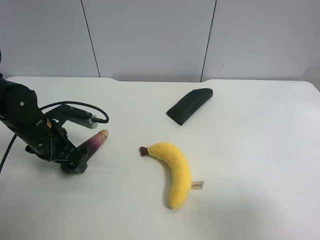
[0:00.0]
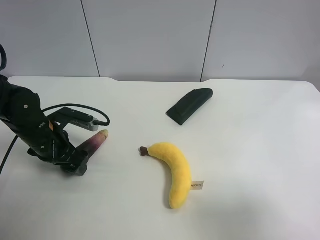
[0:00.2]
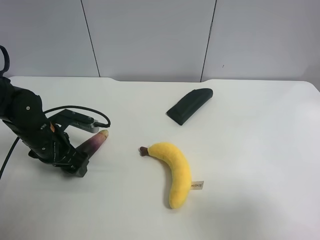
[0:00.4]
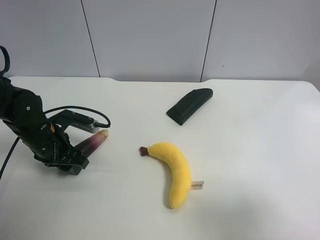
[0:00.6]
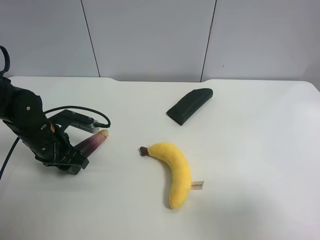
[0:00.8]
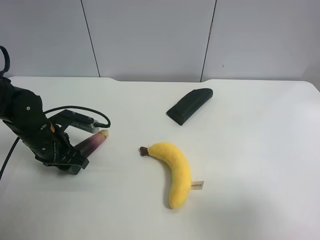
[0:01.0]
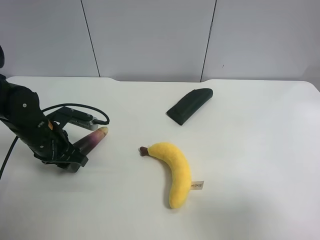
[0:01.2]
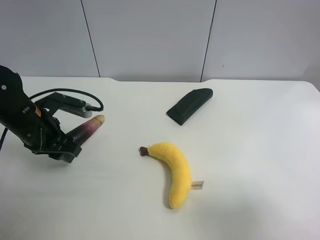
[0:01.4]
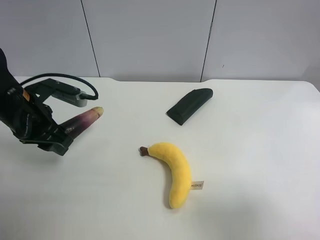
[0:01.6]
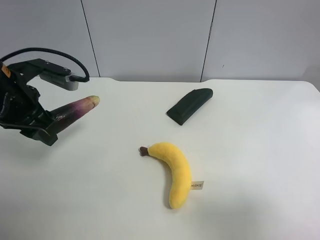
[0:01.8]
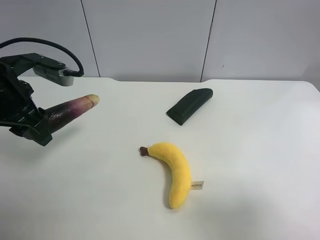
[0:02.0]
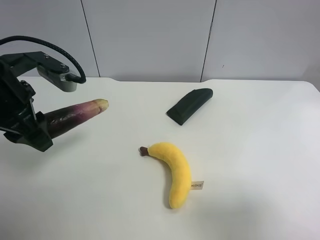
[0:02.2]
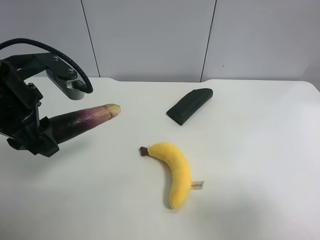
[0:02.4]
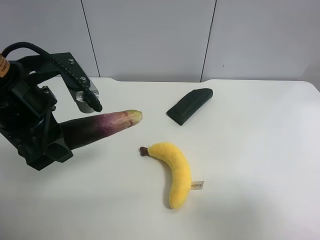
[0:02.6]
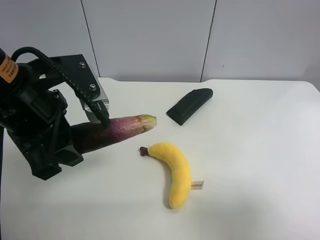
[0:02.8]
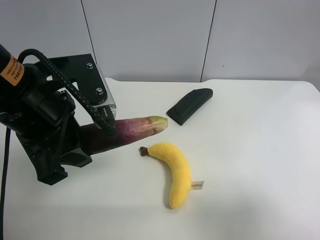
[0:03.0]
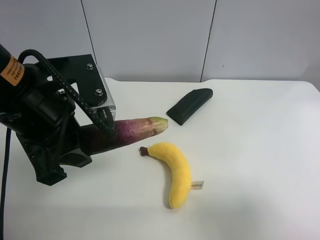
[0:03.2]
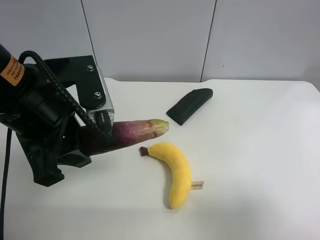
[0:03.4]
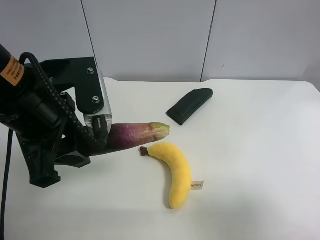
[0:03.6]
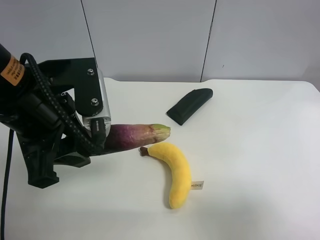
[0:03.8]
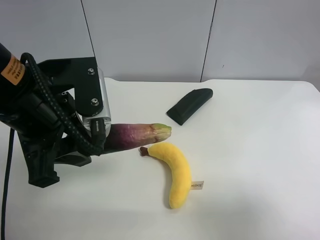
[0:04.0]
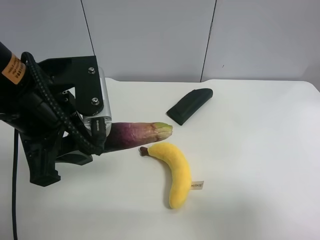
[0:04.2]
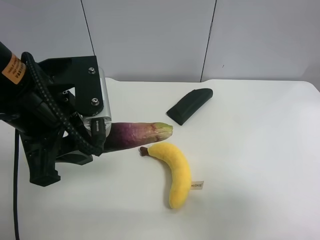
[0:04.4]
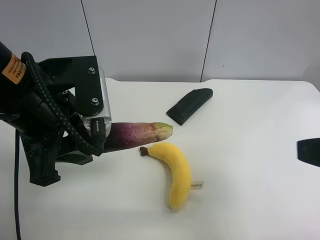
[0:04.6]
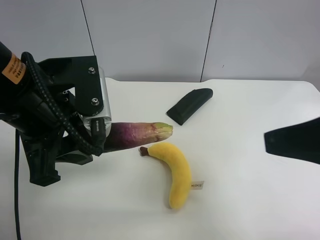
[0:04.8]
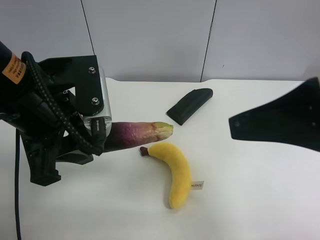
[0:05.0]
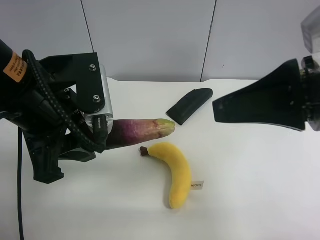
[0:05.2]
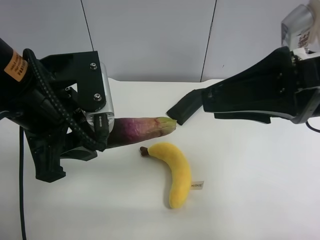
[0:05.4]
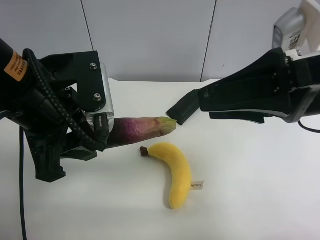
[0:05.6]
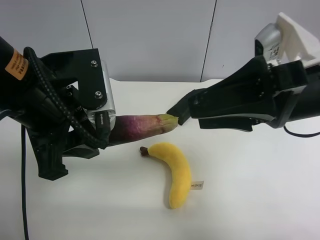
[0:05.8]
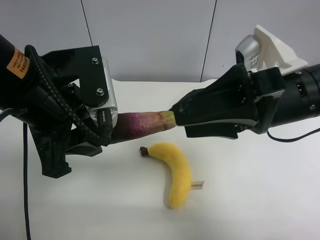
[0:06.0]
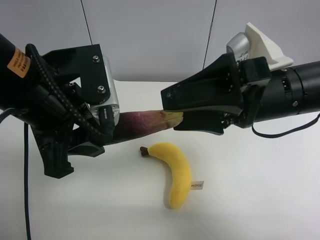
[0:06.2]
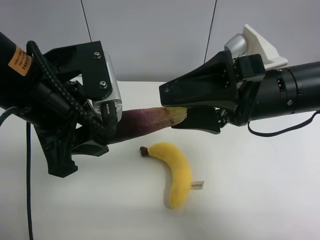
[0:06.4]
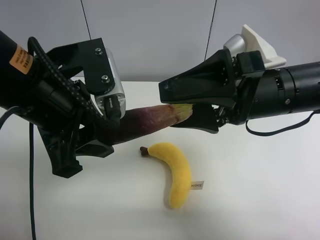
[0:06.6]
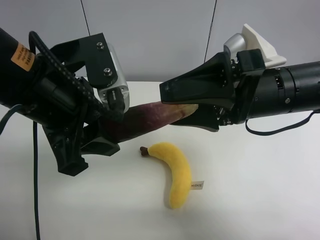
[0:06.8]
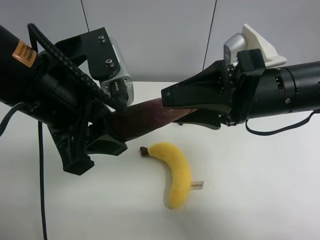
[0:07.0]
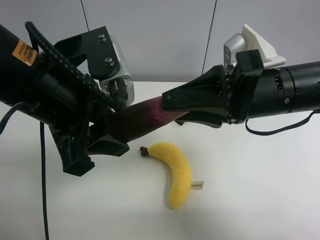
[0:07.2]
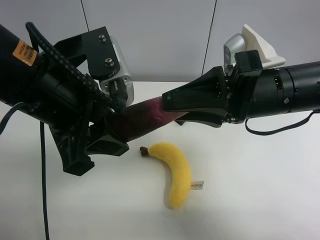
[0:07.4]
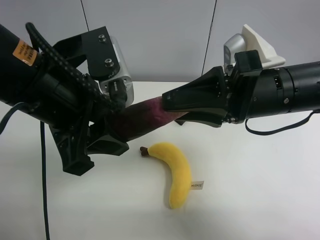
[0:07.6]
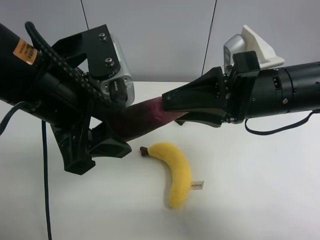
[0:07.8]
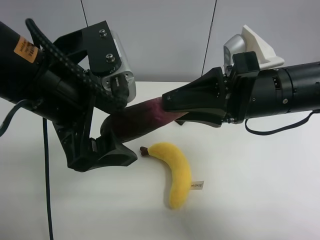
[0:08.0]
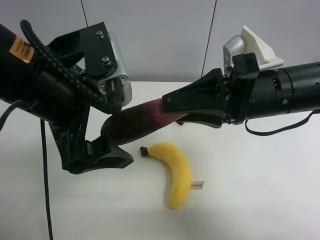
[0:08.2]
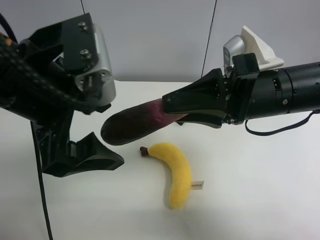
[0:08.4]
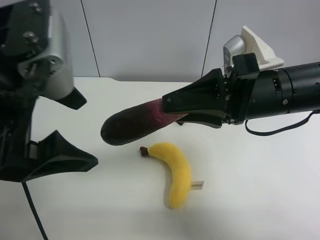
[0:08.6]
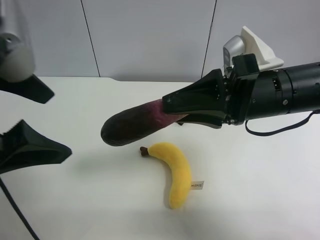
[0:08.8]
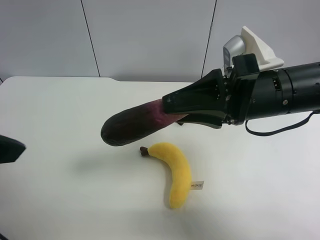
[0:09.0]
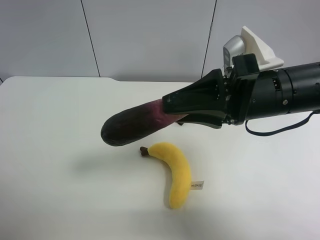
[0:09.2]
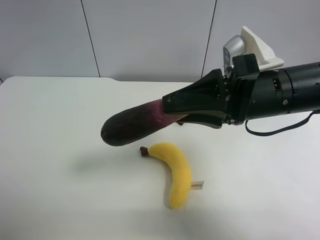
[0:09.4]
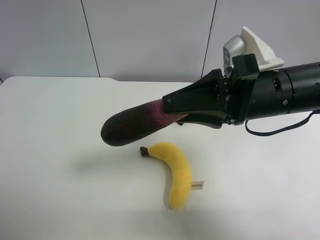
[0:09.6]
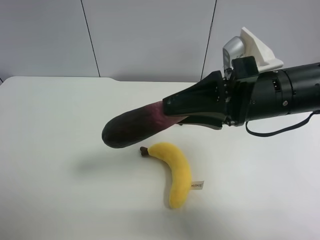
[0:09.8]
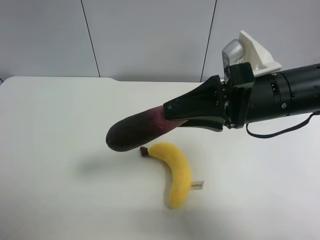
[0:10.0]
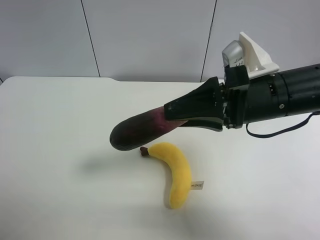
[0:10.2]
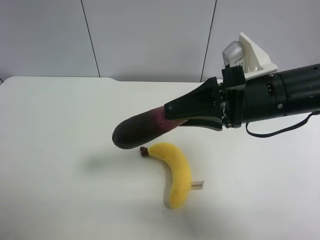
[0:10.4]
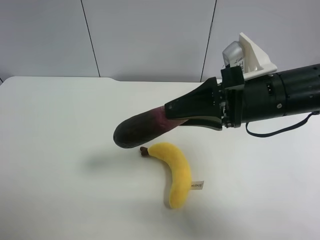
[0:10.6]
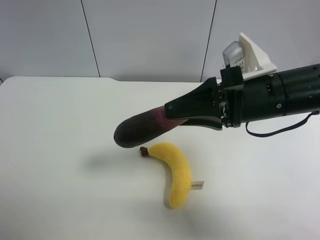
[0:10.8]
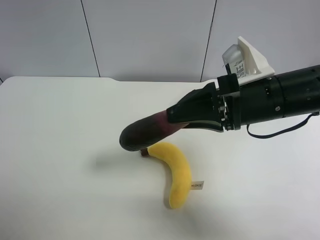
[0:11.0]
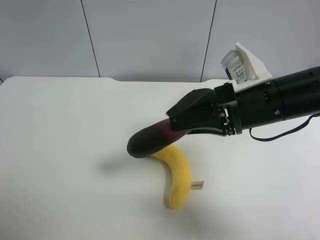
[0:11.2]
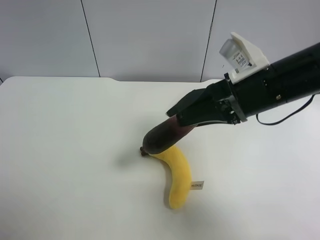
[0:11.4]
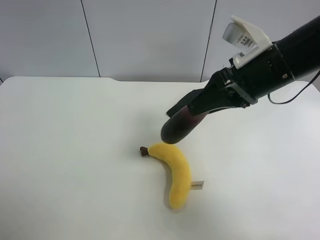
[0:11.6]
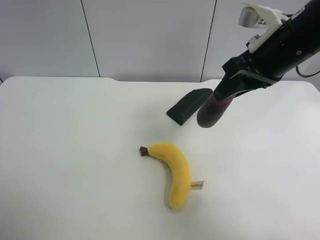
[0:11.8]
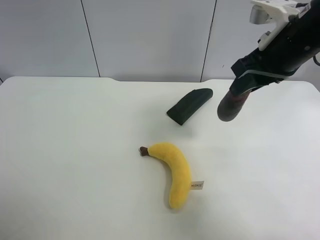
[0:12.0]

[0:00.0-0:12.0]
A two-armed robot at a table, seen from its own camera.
Task of the whole recording: use the left gripper to pick up the item and transfer it from the left gripper to the right gripper.
0:00.0 to 0:01.6: The left gripper goes roughly 10 cm upward, and closes its fingers.
0:01.6 to 0:03.0: The left gripper moves to the right, backward and upward, some 15 cm.
0:03.0 to 0:04.4: There are only small adjustments of the grippers.
0:04.4 to 0:06.0: The right gripper heads forward and to the left, covering roughly 20 cm.
0:06.0 to 0:07.6: The right gripper closes up.
0:07.6 to 0:09.0: The left gripper is displaced to the left, backward and upward by approximately 15 cm, and opens its fingers.
0:09.0 to 0:10.4: The left gripper heads to the left, backward and downward, covering some 15 cm.
0:10.4 to 0:12.0: The right gripper is displaced forward and upward by roughly 10 cm.

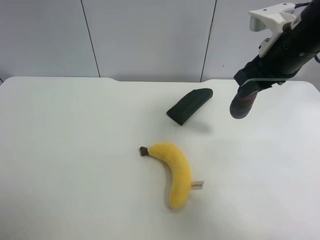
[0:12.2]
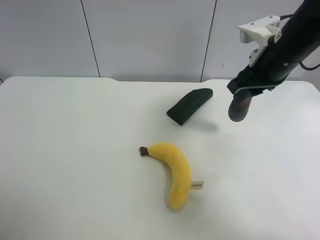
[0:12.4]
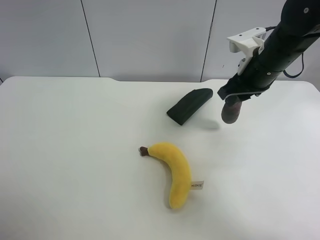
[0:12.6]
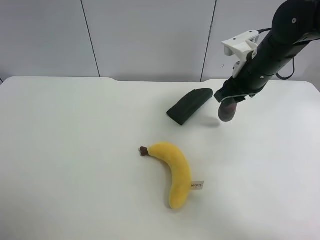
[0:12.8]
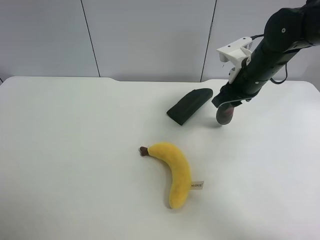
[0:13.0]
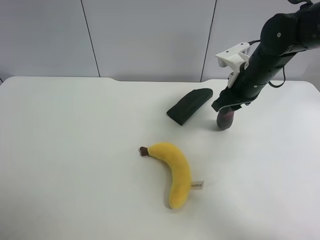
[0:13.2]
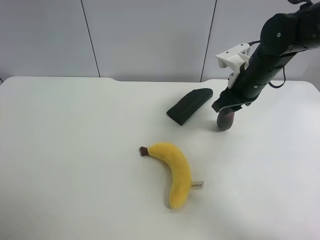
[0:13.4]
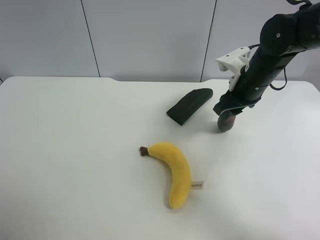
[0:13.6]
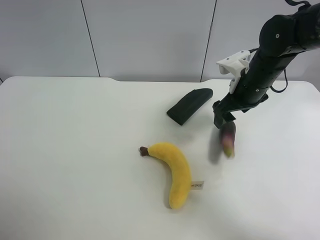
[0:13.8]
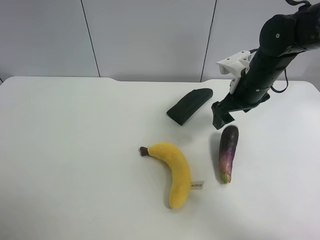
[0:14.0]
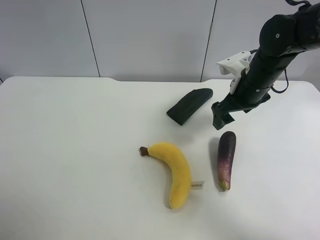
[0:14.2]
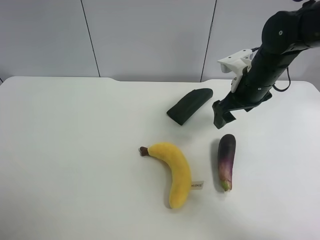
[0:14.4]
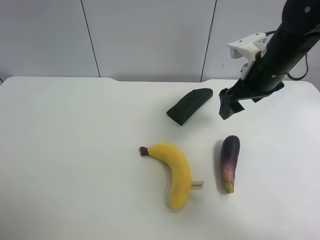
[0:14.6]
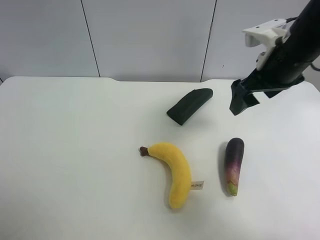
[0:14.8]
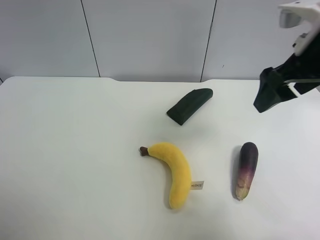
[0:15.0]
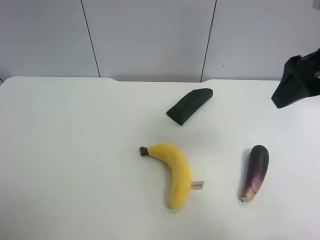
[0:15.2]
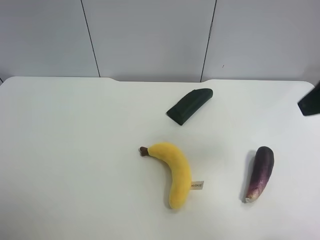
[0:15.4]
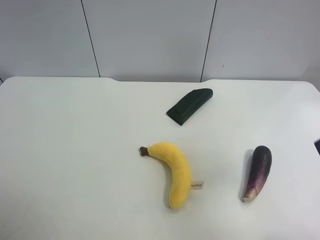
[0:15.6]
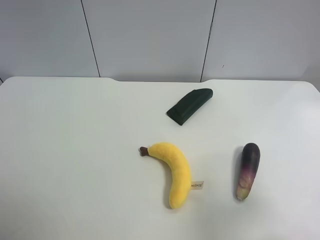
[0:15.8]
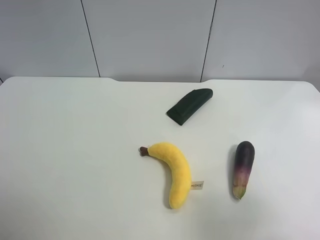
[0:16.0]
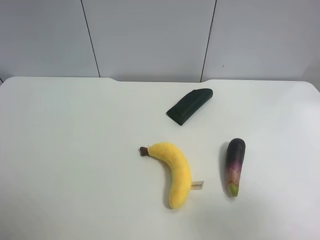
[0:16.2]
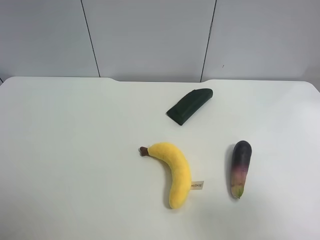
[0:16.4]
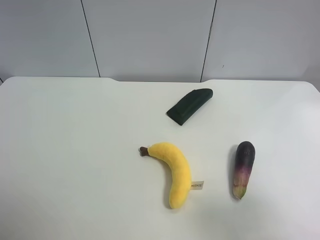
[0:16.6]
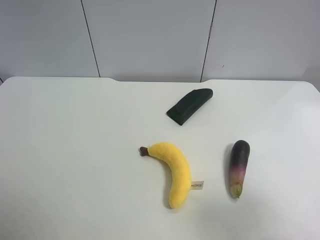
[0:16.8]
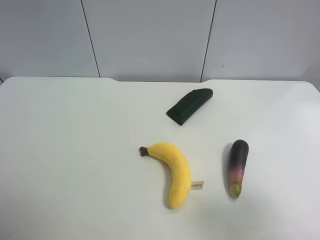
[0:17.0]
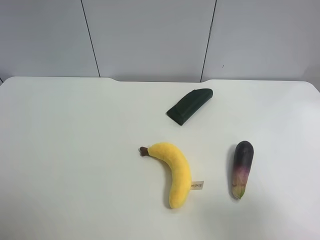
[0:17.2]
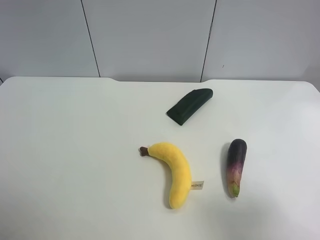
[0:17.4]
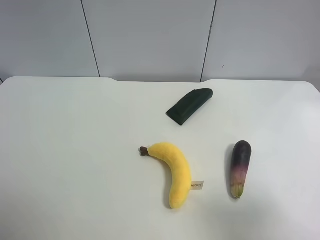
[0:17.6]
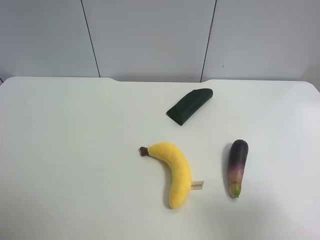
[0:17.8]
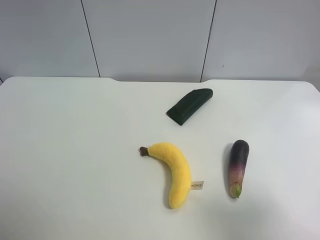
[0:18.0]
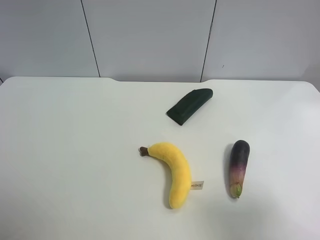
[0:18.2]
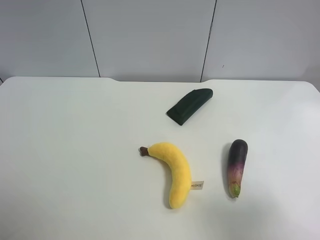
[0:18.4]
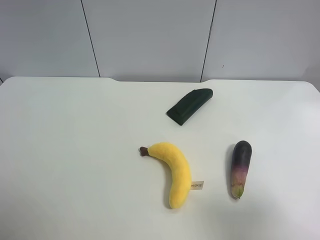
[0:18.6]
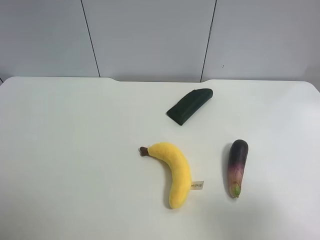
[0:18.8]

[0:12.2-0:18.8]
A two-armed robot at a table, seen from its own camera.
Task of the whole recording: use the left gripper to pick up the item and transfer it from the left gripper to the right gripper.
0:12.2 to 0:13.8: The right gripper goes approximately 10 cm downward, and opens.
0:13.8 to 0:15.4: The right gripper is displaced backward and upward by about 25 cm.
0:15.4 to 0:17.2: The right gripper is displaced backward and downward by roughly 15 cm.
0:17.2 to 0:18.8: Both grippers stay about where they are.

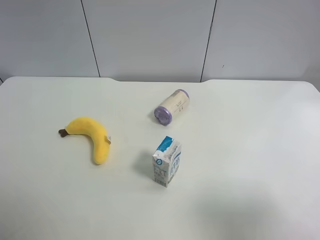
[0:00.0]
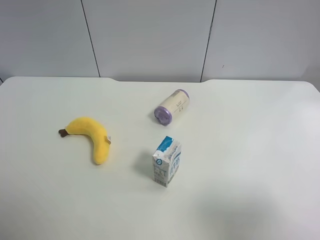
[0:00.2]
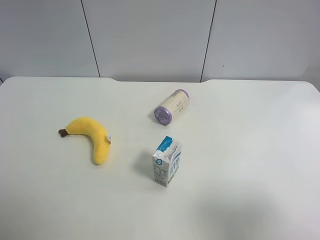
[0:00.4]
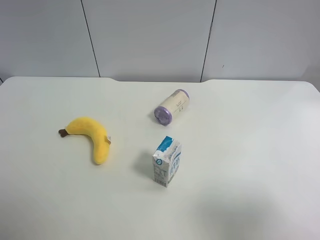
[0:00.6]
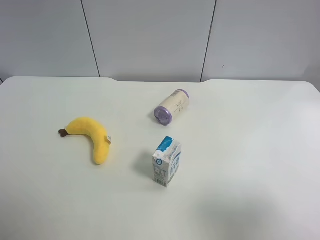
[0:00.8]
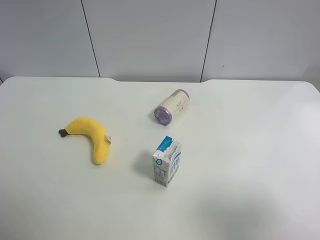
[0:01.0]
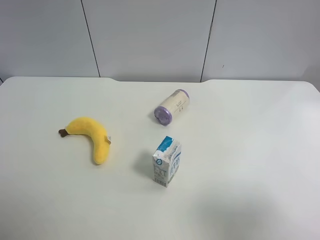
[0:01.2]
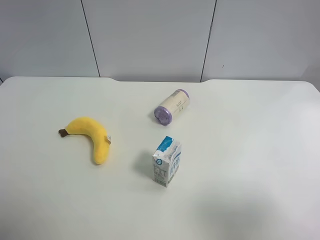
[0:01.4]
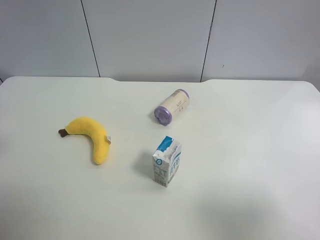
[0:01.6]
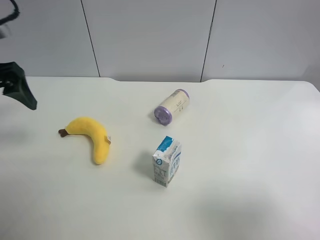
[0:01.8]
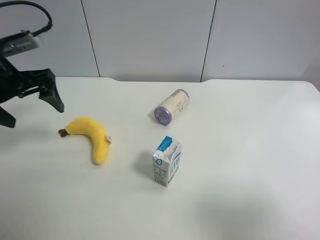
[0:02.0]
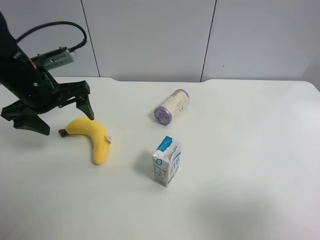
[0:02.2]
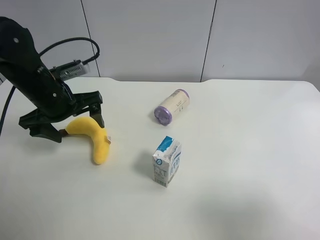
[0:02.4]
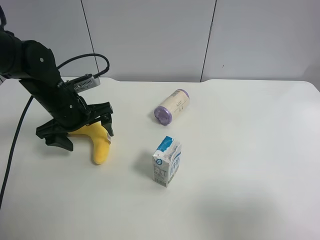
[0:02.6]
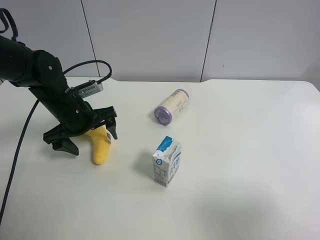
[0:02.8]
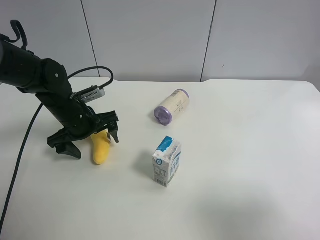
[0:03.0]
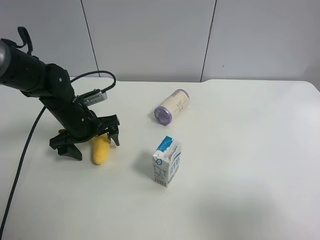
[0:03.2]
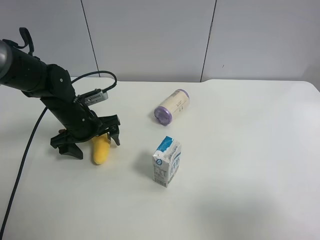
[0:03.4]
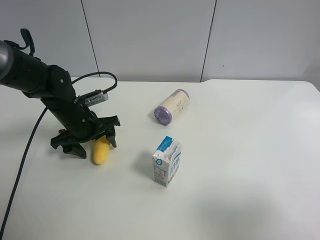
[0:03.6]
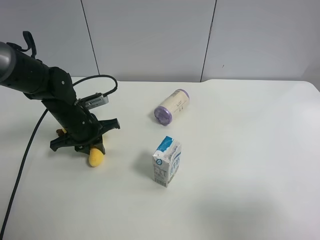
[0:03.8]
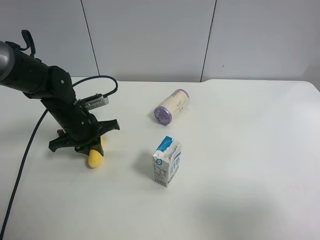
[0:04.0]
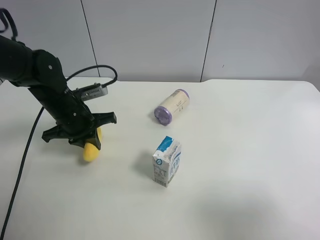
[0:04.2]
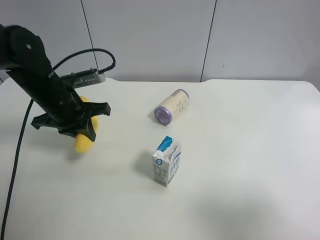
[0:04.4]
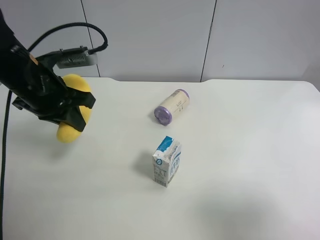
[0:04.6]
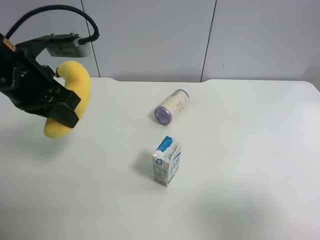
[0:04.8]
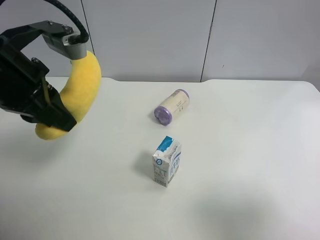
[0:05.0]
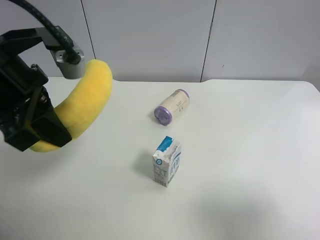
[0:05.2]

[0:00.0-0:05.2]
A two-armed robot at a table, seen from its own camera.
Task of the whole recording: use the left gripper to pick up the item and transfer it from the left gripper to the right gripper.
0:00.0 to 0:01.8: The left gripper travels forward by roughly 25 cm.
0:01.8 to 0:03.4: The left gripper is displaced downward and to the right by some 20 cm.
0:03.4 to 0:05.2: The left gripper shifts some 25 cm upward and backward, and closes up.
